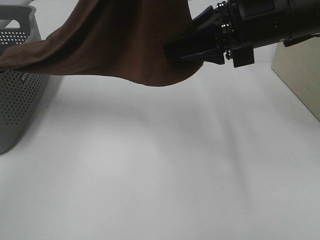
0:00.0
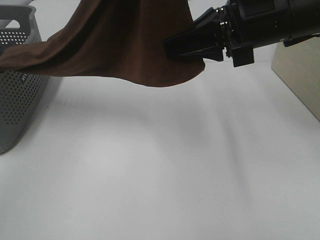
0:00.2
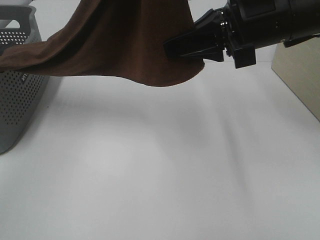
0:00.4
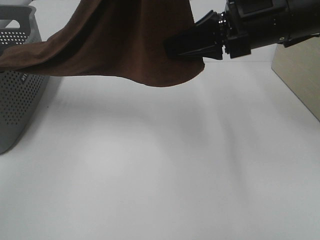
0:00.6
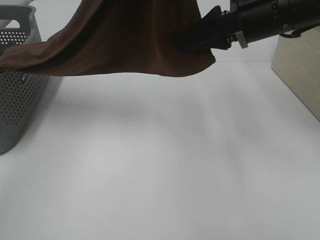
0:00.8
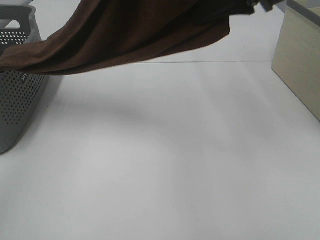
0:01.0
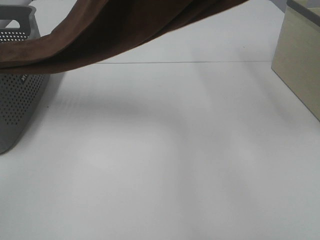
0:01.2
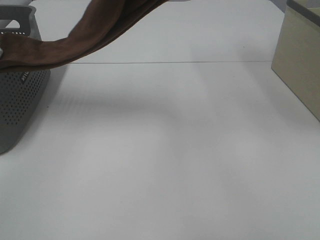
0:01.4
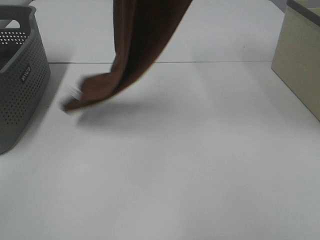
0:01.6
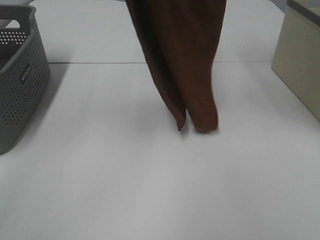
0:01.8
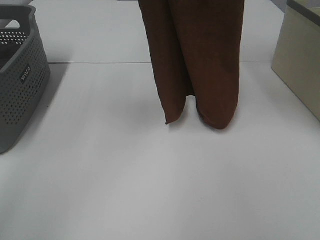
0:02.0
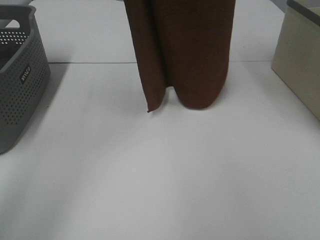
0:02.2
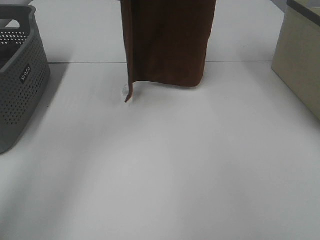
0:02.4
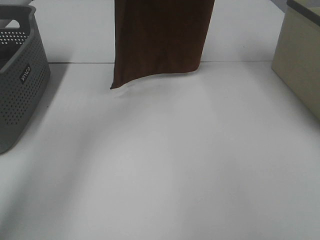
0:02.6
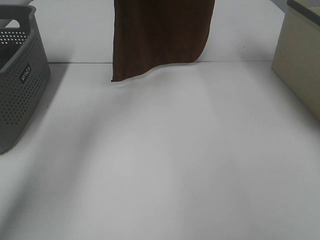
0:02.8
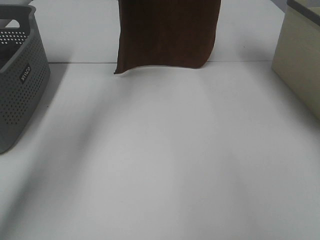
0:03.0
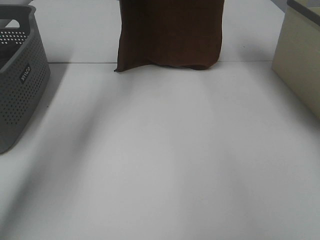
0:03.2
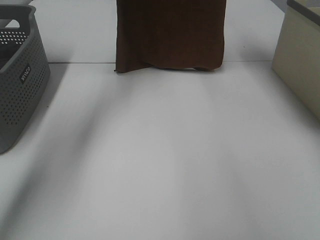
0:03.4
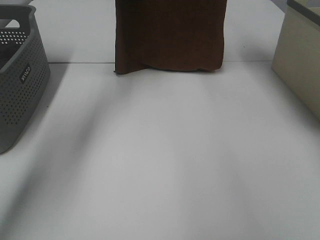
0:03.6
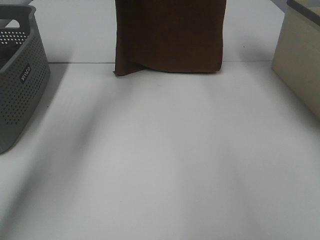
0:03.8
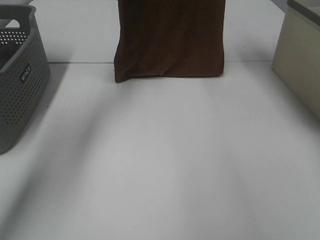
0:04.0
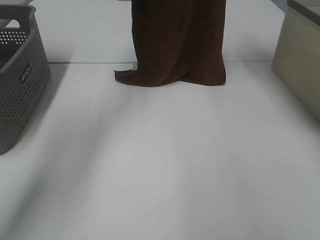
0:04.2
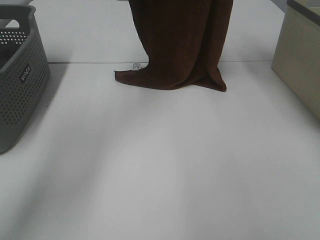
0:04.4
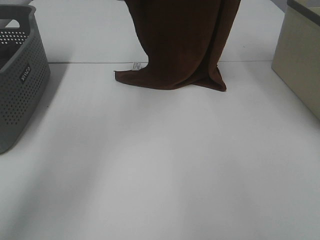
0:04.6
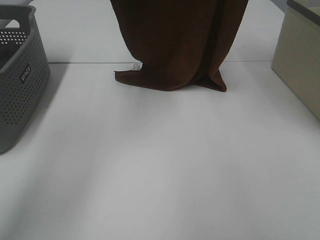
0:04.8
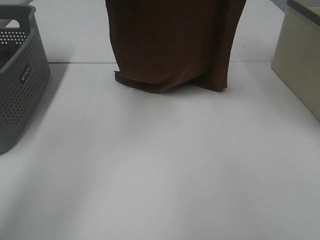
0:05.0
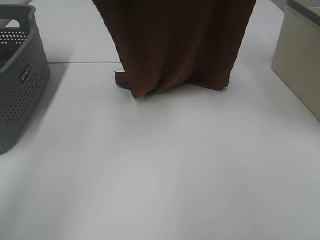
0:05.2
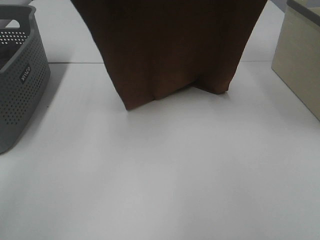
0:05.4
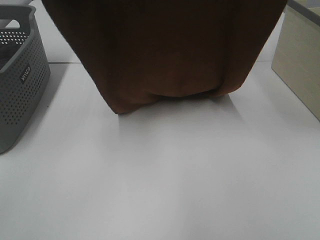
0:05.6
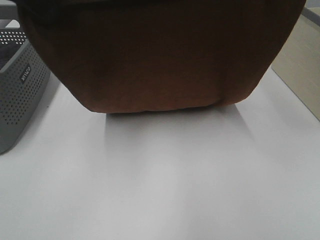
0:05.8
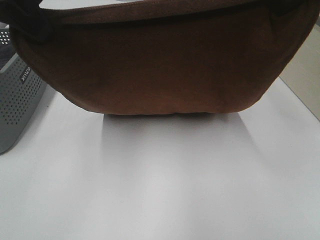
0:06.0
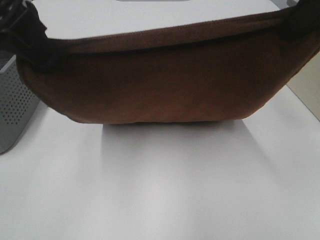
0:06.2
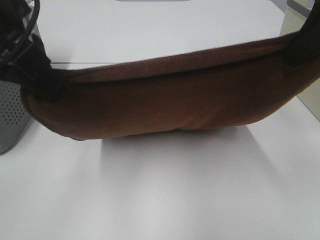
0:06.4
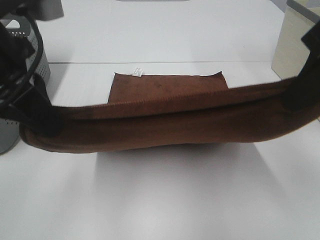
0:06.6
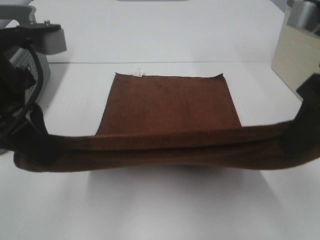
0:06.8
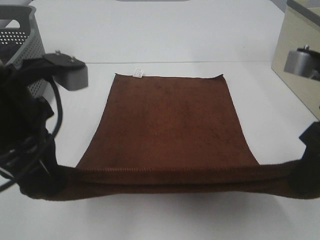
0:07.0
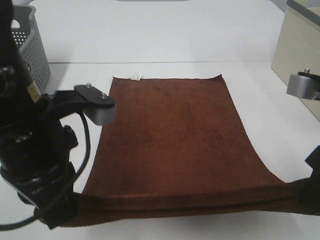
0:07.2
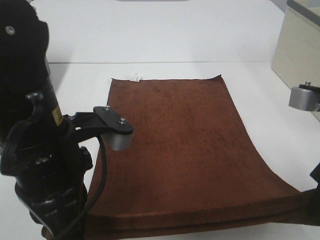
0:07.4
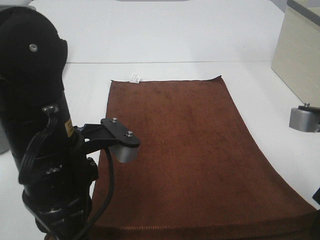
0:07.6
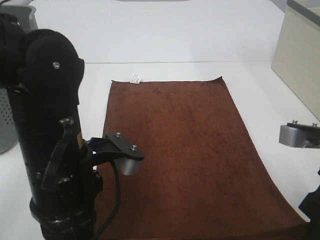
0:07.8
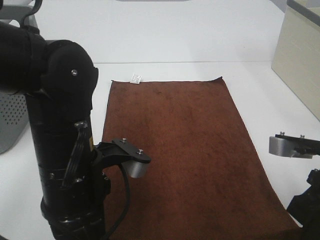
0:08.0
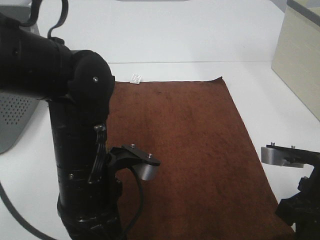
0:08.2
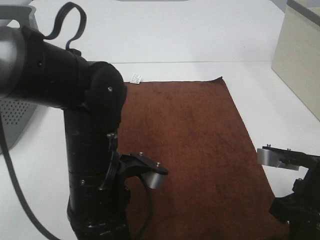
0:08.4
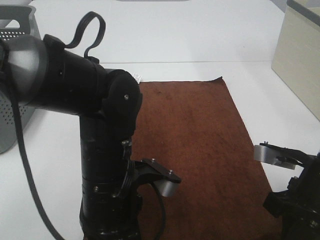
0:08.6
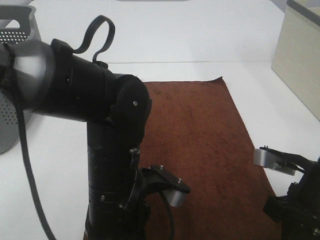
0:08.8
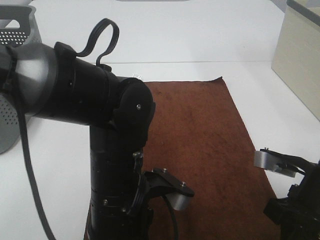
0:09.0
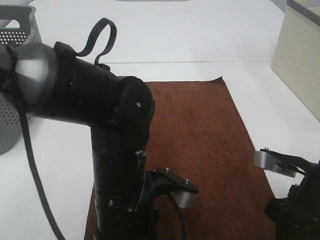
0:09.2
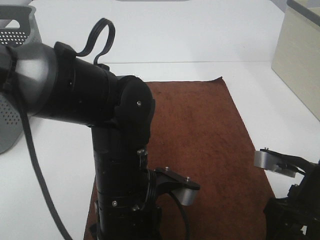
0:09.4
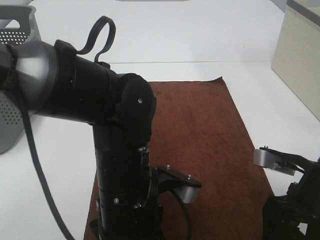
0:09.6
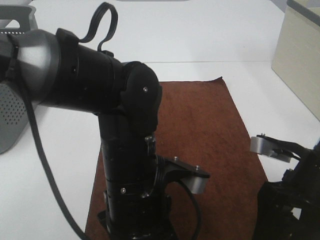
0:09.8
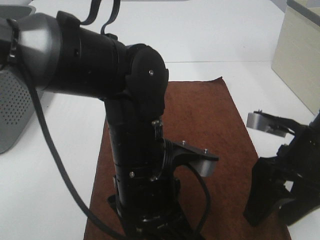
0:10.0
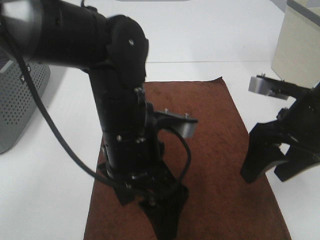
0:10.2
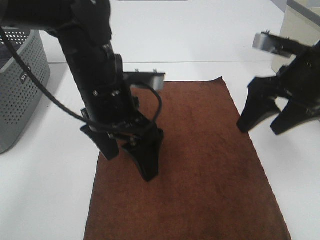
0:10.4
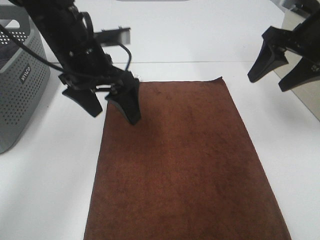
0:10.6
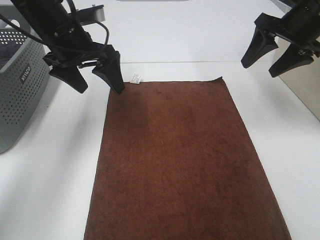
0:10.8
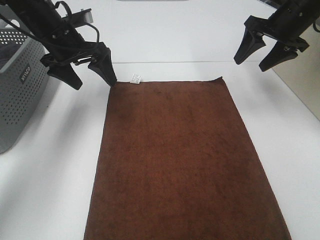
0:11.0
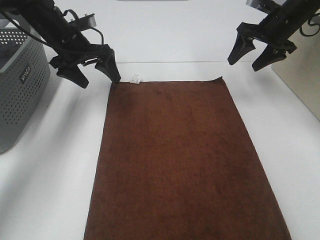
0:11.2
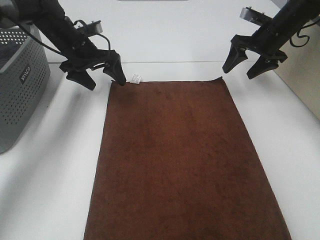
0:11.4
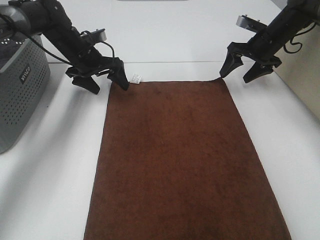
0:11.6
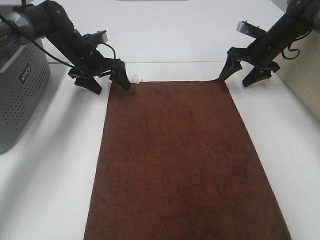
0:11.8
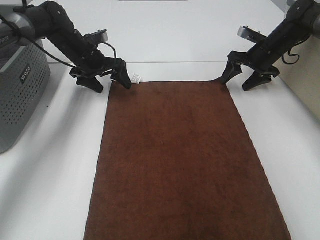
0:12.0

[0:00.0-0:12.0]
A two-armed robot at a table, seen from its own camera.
Task of the whole recording: Remove the towel and place it.
Step, 0:01.2 to 0:05.6: Left hand: spread the brown towel flat on the table.
Step, 0:01.2 to 0:05.6: Right hand: spread the brown towel flat on the table.
0:00.0 to 0:01.6: The right gripper goes some 20 cm upward, and closes. Meanwhile the left gripper shifts by roughly 5 cm.
0:01.6 to 0:03.0: The two grippers go roughly 20 cm forward.
0:03.0 to 0:04.4: The left gripper shifts approximately 5 cm downward.
0:04.4 to 0:06.0: Both grippers travel together backward, approximately 25 cm.
0:06.0 to 0:07.6: The right gripper heads downward and backward, covering roughly 20 cm. Meanwhile the left gripper shifts roughly 20 cm downward and to the right.
0:07.6 to 0:09.0: The left gripper goes some 10 cm to the right and downward; the right gripper is displaced downward by about 10 cm.
0:09.0 to 0:10.4: Both grippers move forward and upward, approximately 15 cm. The right gripper opens up. The left gripper opens.
0:10.4 to 0:12.0: The left gripper shifts roughly 25 cm forward and to the left. The right gripper travels forward and downward by about 30 cm.

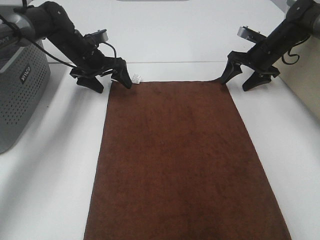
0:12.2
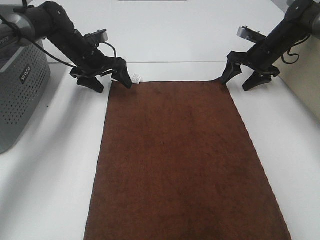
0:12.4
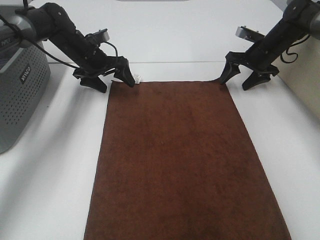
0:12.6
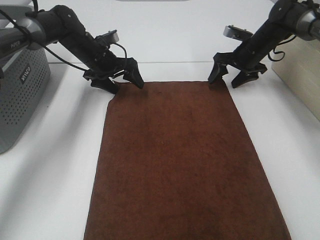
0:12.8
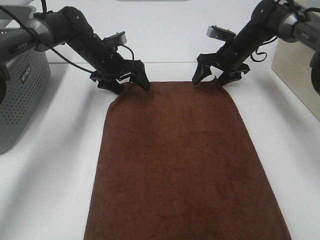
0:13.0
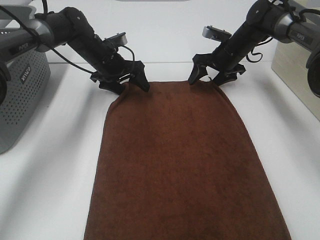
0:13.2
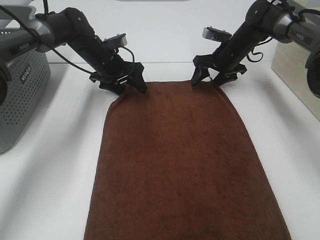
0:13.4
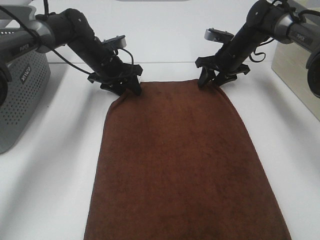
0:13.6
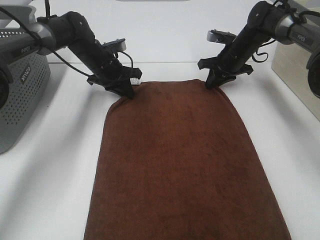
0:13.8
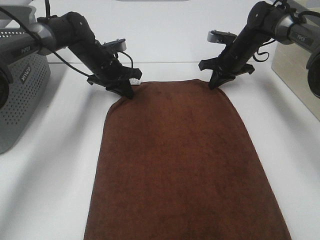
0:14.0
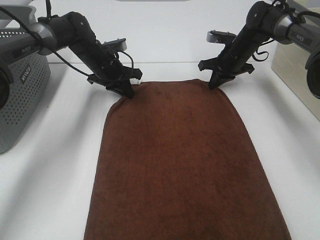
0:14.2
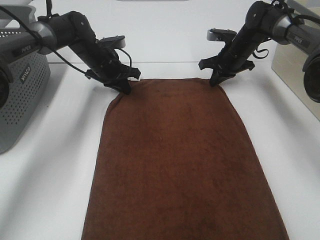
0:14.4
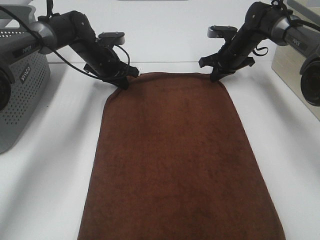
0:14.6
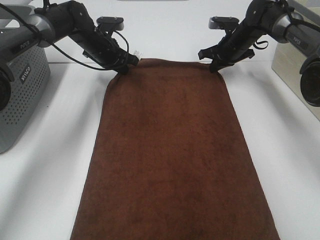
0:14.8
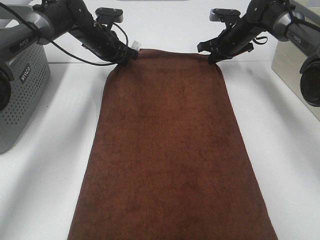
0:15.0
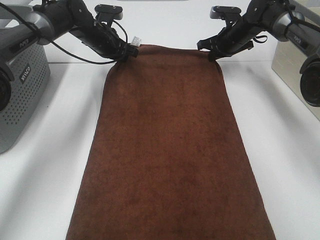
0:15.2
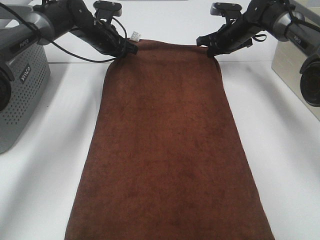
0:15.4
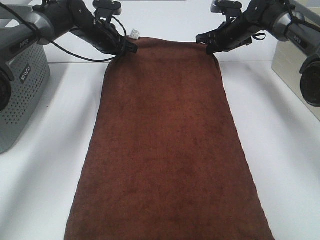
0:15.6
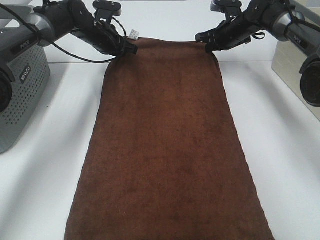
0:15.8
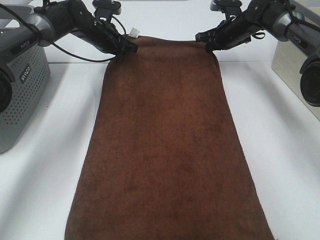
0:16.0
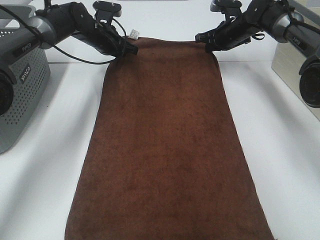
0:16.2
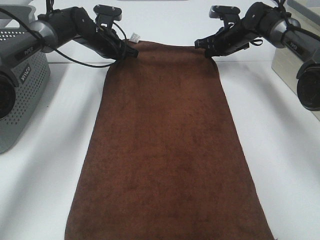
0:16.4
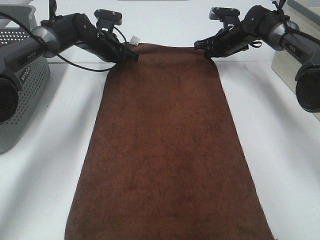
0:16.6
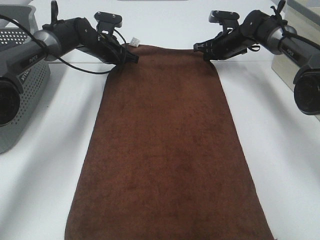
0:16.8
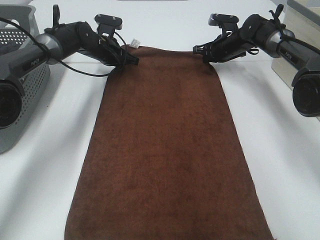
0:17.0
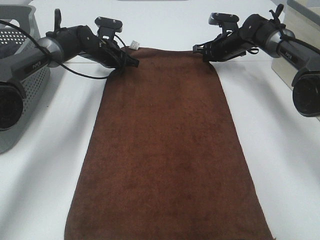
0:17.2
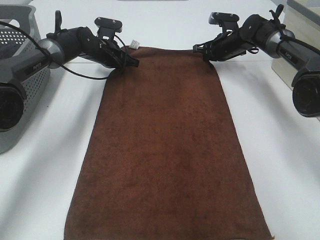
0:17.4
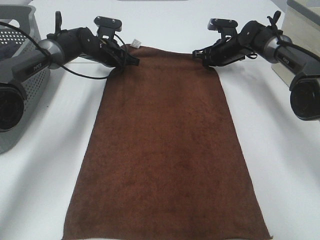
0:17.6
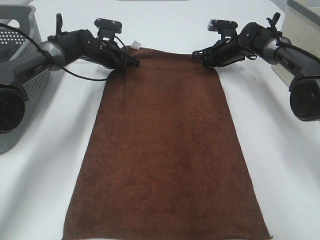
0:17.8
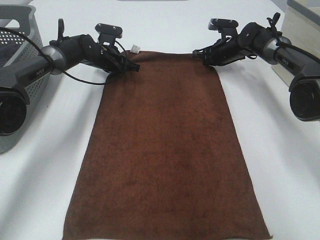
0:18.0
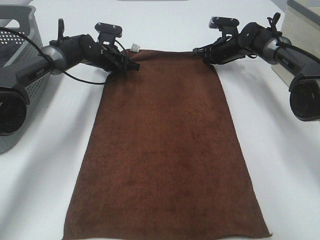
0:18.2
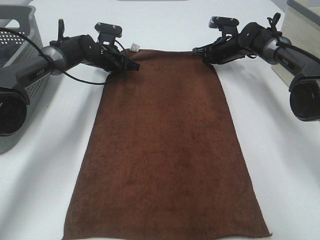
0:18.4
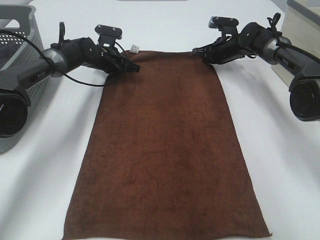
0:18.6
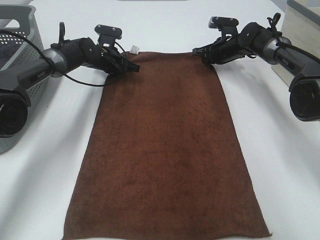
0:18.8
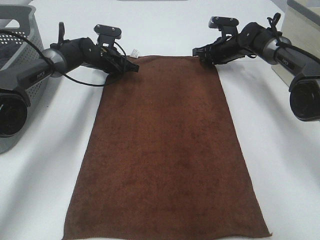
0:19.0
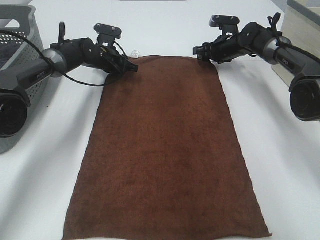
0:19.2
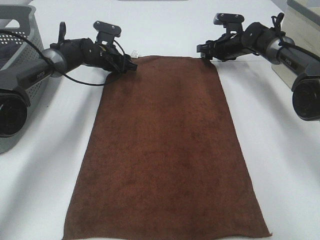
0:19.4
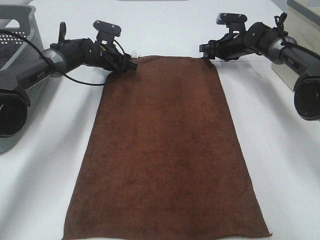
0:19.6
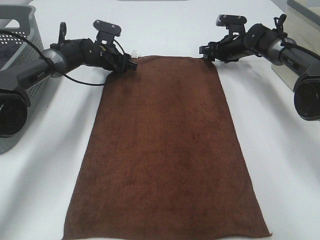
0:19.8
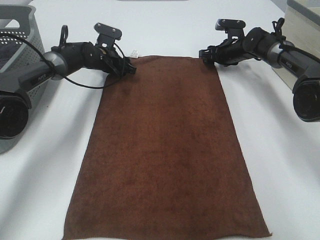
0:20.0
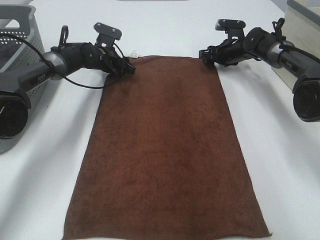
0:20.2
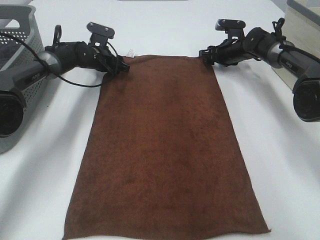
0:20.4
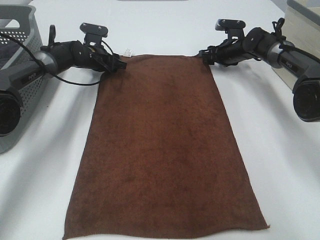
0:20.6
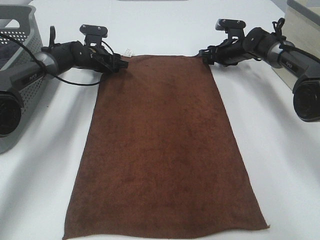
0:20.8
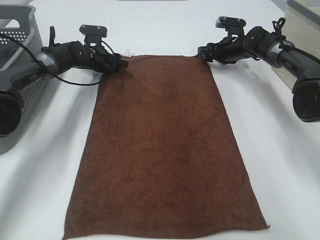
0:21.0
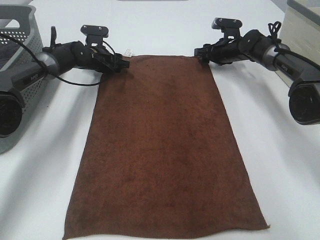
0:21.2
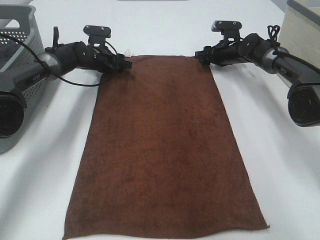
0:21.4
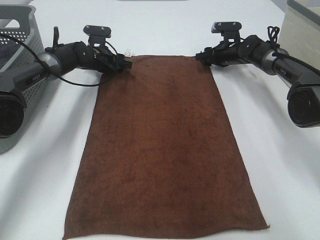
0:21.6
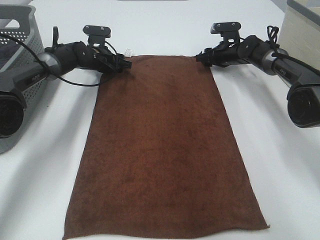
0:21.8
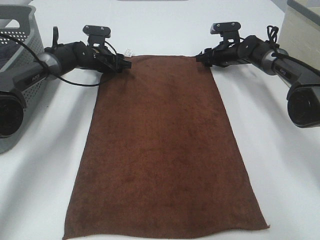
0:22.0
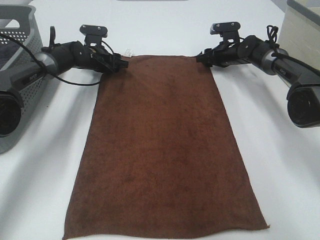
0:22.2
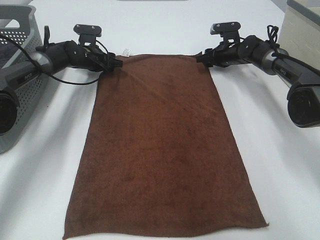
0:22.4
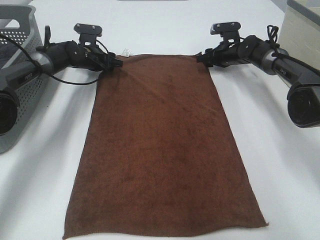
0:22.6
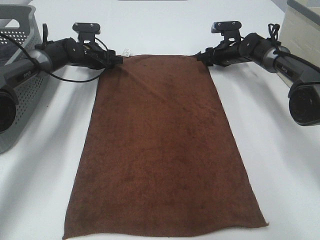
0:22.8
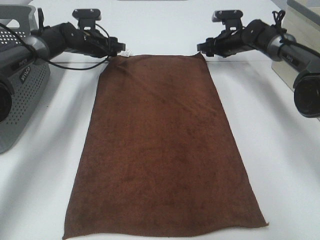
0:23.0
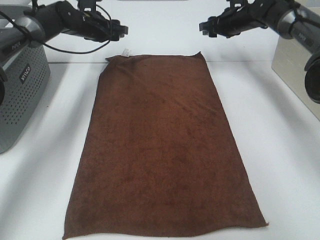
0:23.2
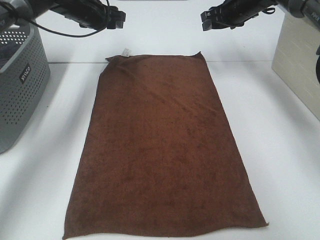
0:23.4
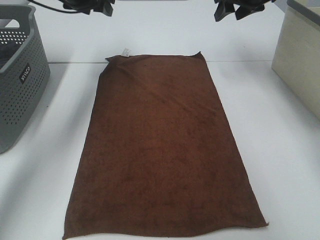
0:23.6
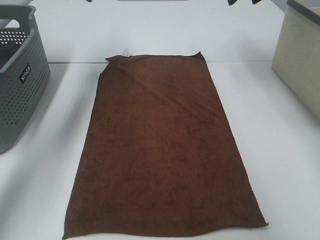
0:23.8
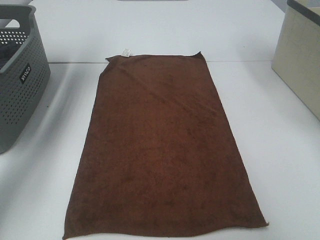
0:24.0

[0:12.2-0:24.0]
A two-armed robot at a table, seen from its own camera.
Task of the whole recording: Remove the towel and place it.
Step, 0:12.2 to 0:16.4: Left hand:adjust the brown towel.
Step, 0:12.2 to 0:16.4: Right hand:adjust the brown towel.
0:12.2 to 0:13.6: The left gripper closes up, while the right gripper shifts roughly 10 cm to the left, and closes up.
0:13.6 to 0:15.2: The right gripper shifts by about 5 cm, and closes up, while the left gripper moves approximately 5 cm, and closes.
0:15.2 to 0:16.6: The grippers stay close to where they were, moving slightly.
0:16.6 to 0:18.2: The grippers stay close to where they were, moving slightly.
0:18.2 to 0:19.6: The left gripper opens up, while the right gripper opens up.
0:19.6 to 0:22.6: There are only small adjustments of the grippers.
0:22.6 to 0:24.0: The two grippers go approximately 30 cm upward.
